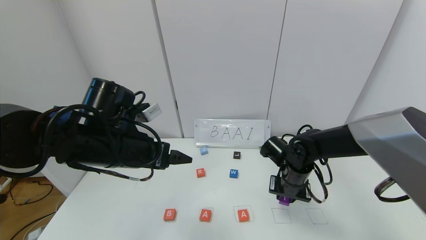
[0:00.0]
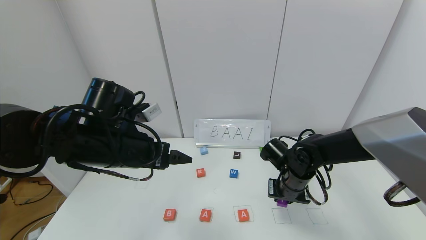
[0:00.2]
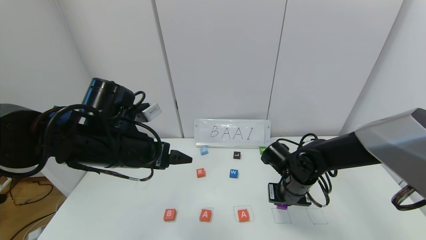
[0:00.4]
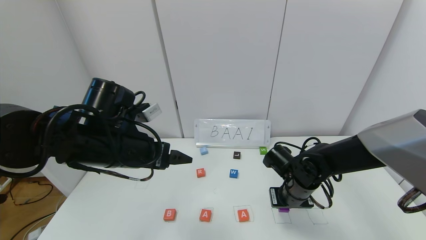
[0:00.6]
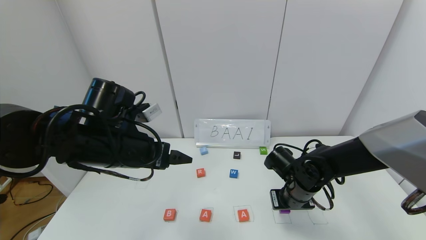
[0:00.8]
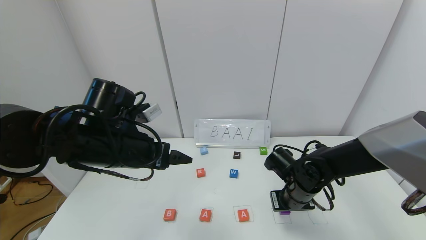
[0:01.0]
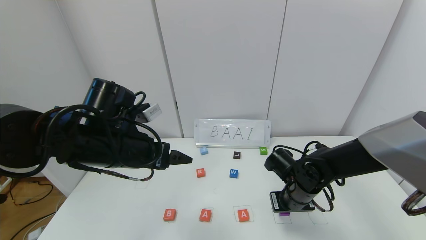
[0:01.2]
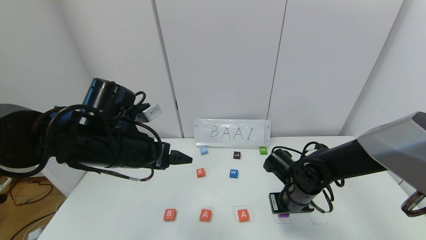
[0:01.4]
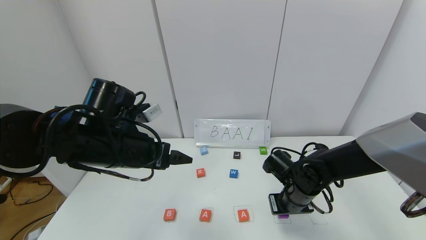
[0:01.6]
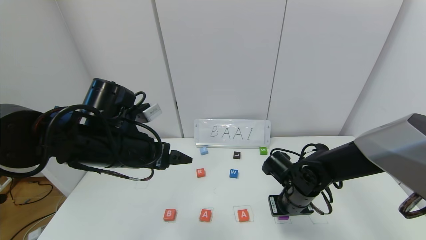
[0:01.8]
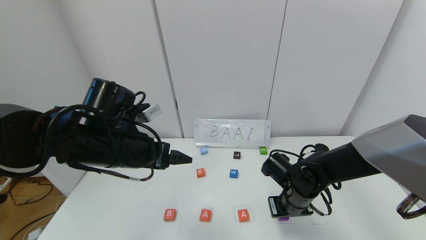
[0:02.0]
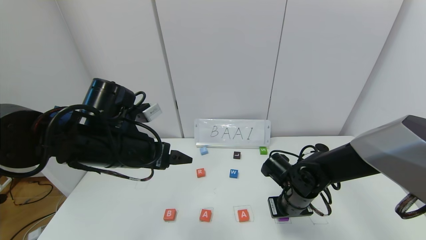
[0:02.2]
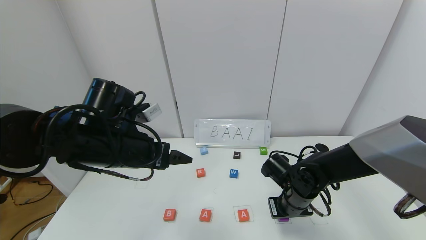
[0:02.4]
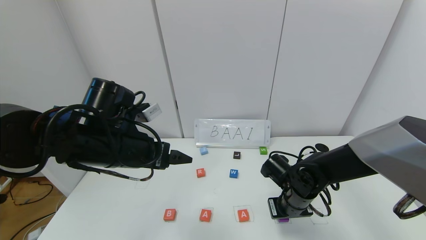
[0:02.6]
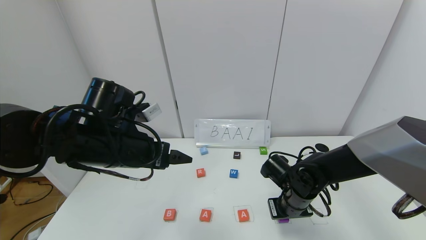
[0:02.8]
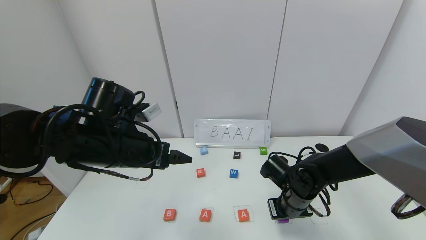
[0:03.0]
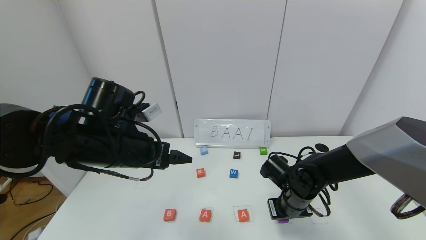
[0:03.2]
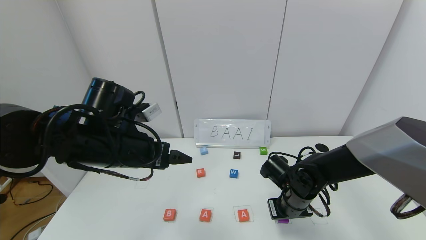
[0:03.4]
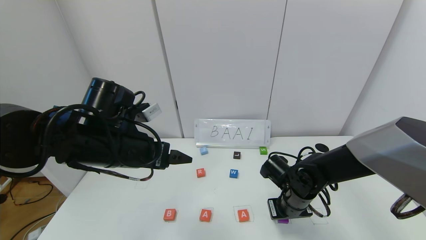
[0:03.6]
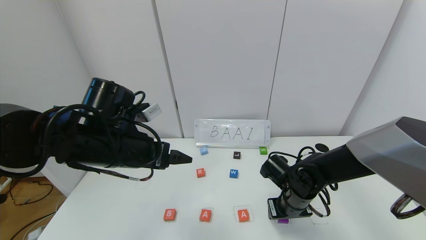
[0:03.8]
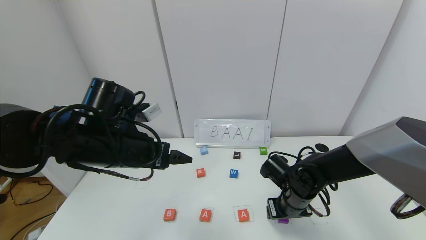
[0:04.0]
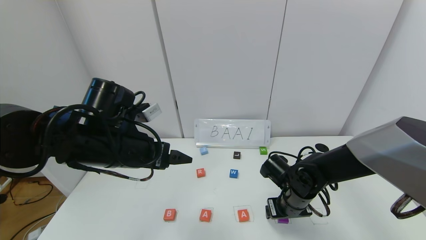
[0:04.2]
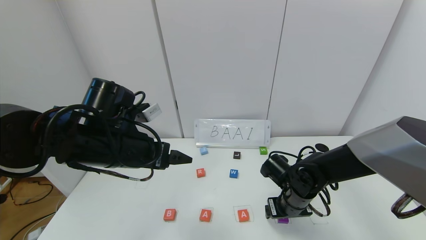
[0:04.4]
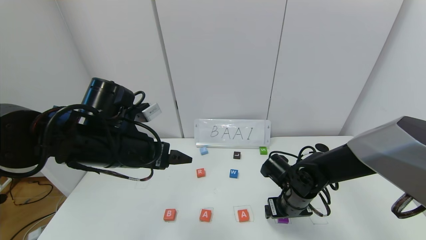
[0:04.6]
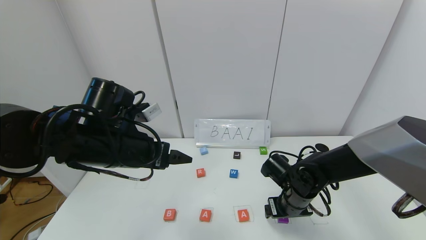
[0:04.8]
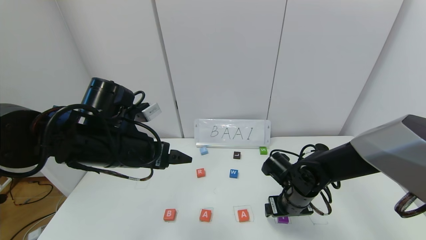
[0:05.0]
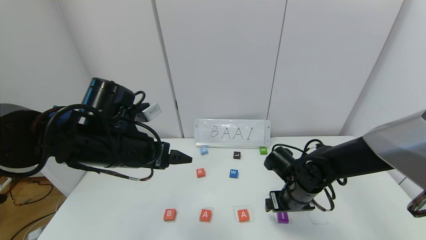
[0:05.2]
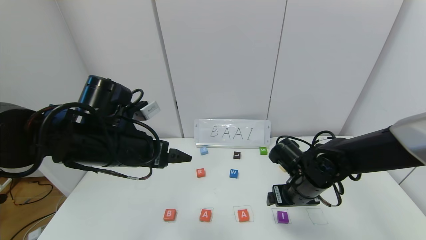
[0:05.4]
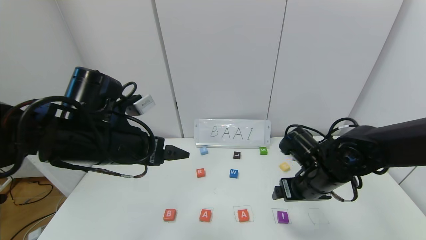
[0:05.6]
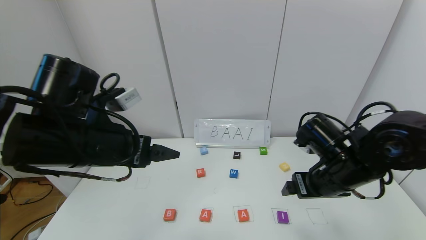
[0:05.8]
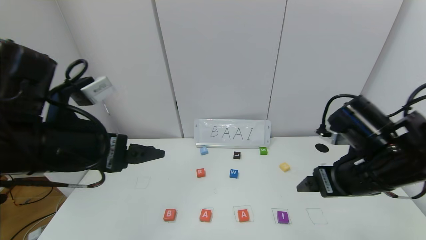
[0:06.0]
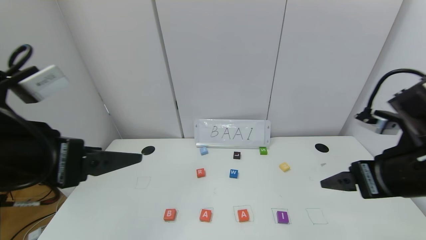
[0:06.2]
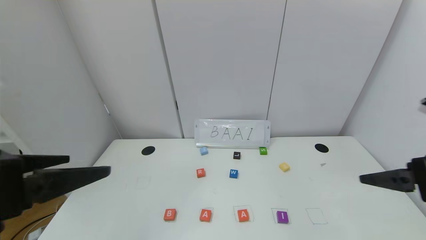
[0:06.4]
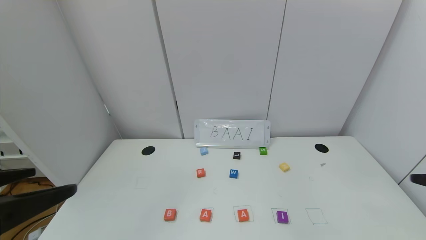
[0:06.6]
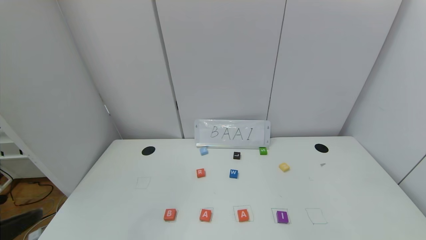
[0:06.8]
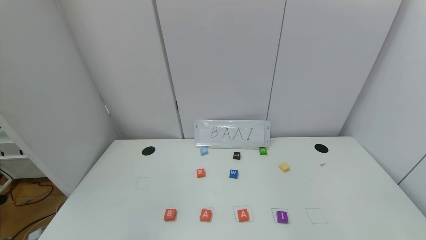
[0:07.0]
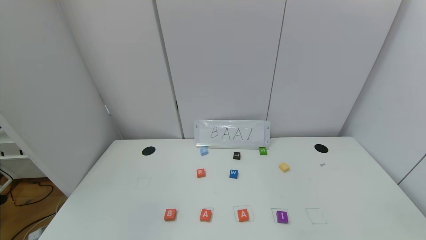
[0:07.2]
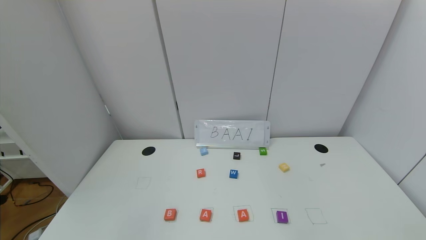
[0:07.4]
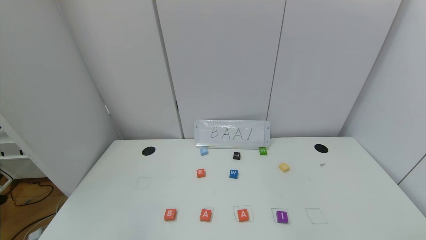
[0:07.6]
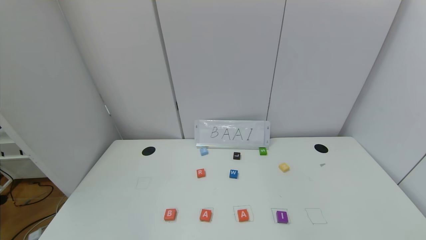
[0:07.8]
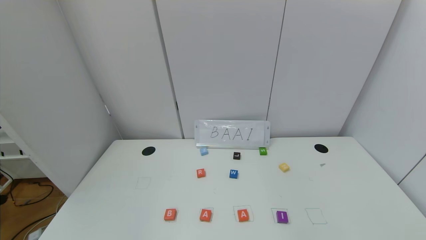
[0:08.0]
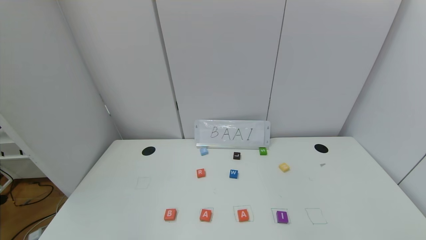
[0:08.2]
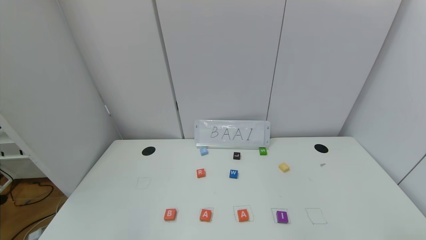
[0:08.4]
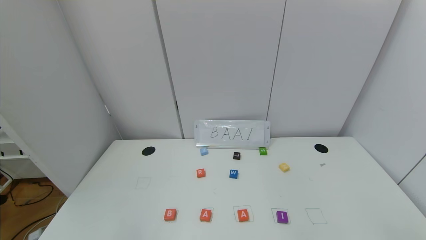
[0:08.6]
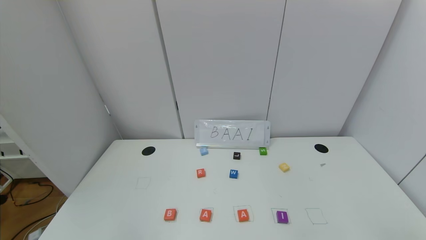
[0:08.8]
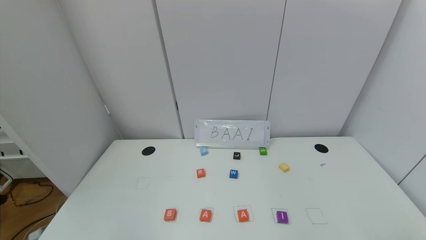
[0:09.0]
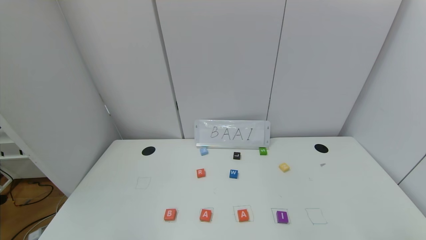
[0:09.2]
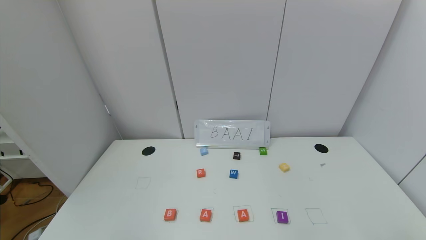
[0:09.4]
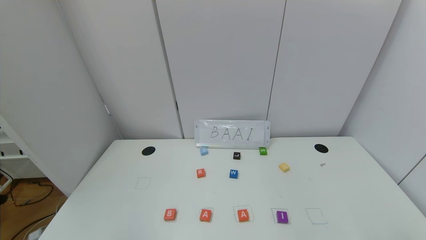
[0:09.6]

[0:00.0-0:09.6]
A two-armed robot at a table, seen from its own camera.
Task of the whole recording: use the gripper to find blocks with the letters b, a, a, and i on the table and arrange them into BAAI, then find r and N and turn the arranged baai into brian.
Step, 0:00.0 to 0:04.8: Place the block I in the fourth location.
0:01.6 to 0:03.2: Both grippers stay about where they are.
0:03.2 to 0:04.8: The right gripper opens its fingers.
0:04.8 to 0:06.4: The right gripper travels upward, backward and to the right by some 30 cm. Meanwhile the left gripper moves backward and upward, approximately 20 cm.
0:06.4 to 0:08.0: Both grippers move backward and downward, approximately 25 cm.

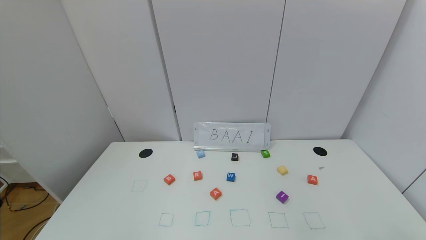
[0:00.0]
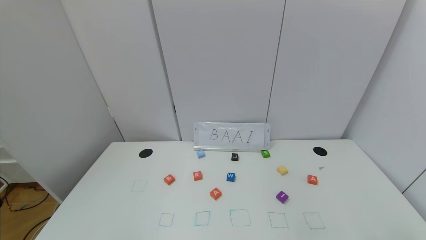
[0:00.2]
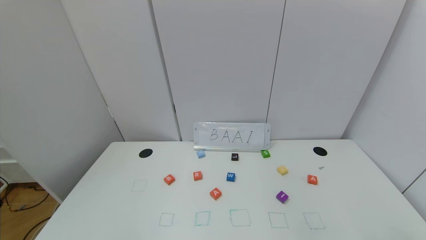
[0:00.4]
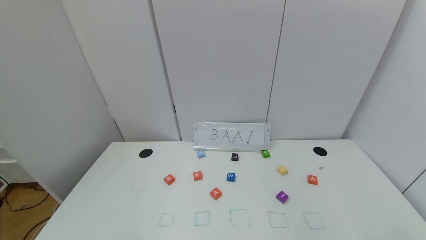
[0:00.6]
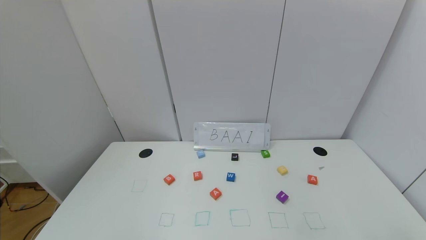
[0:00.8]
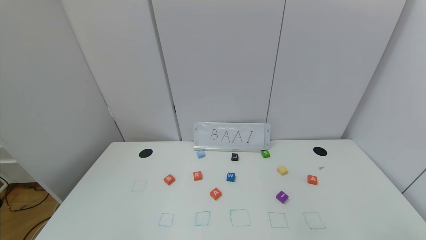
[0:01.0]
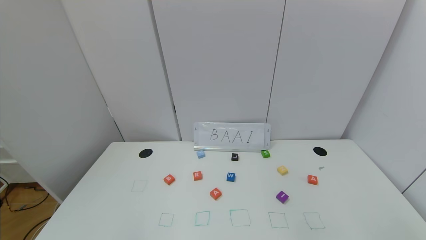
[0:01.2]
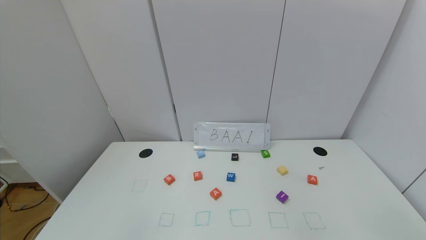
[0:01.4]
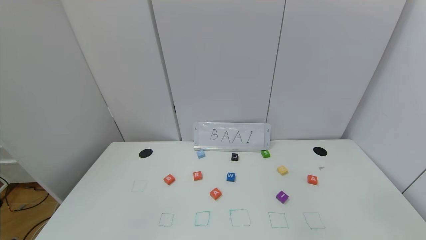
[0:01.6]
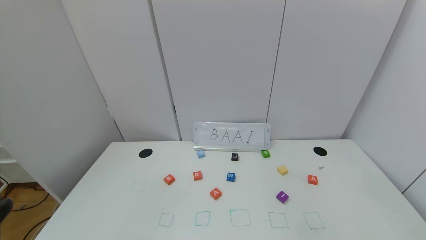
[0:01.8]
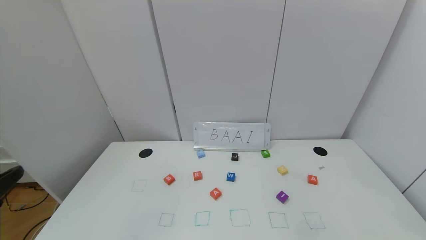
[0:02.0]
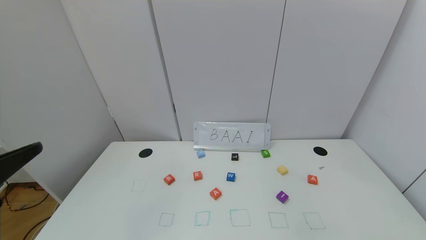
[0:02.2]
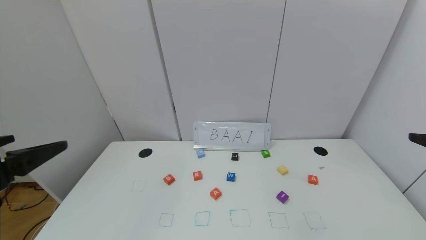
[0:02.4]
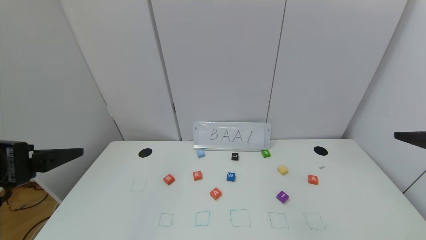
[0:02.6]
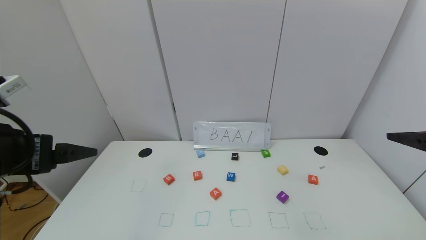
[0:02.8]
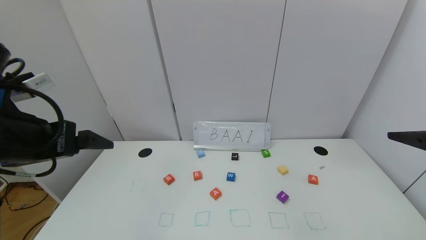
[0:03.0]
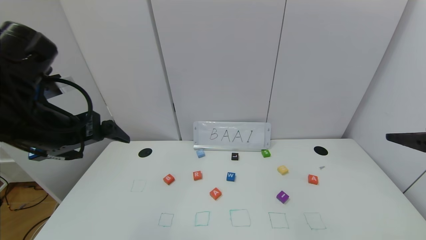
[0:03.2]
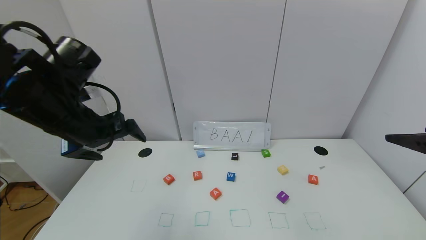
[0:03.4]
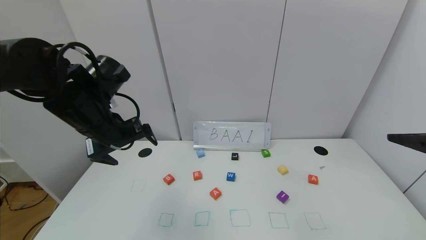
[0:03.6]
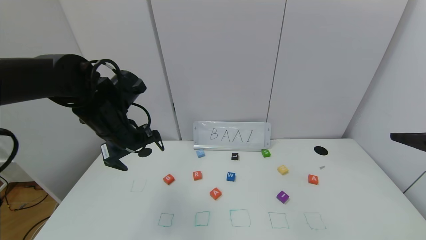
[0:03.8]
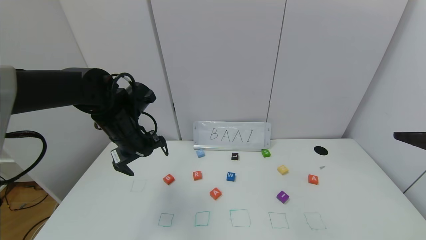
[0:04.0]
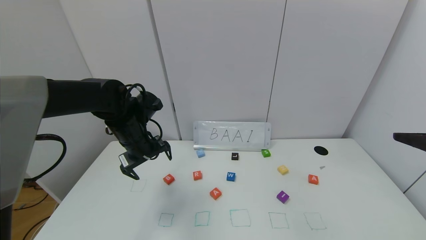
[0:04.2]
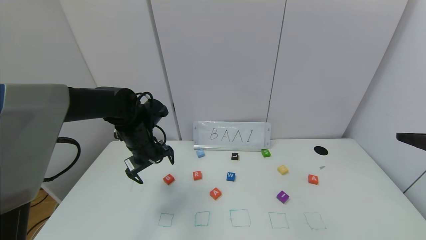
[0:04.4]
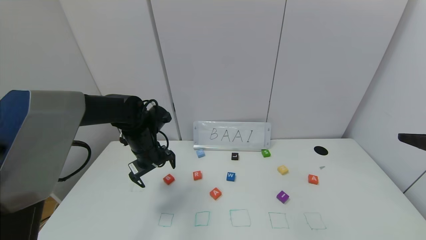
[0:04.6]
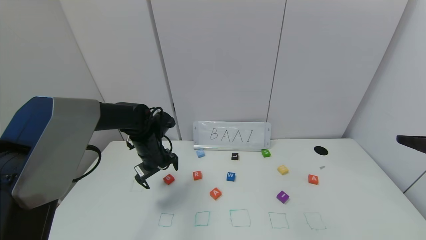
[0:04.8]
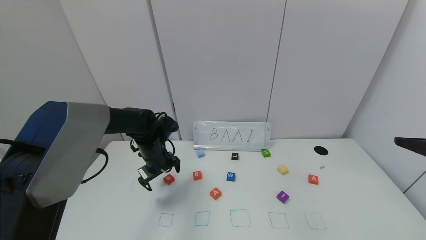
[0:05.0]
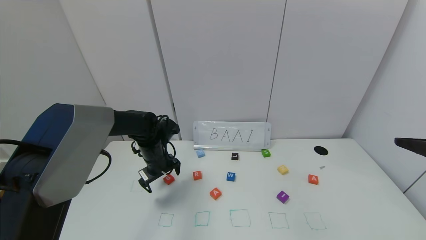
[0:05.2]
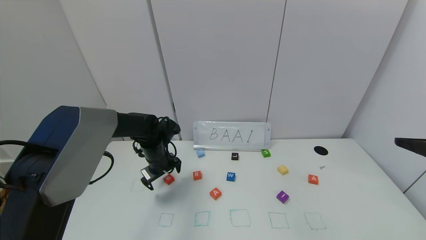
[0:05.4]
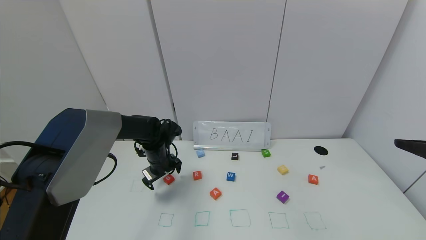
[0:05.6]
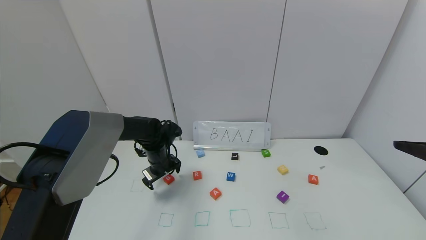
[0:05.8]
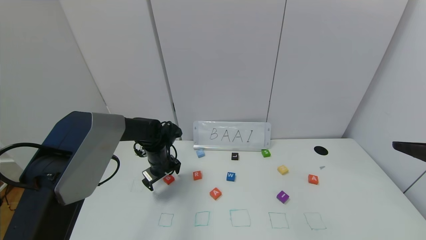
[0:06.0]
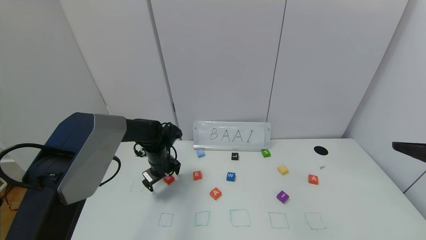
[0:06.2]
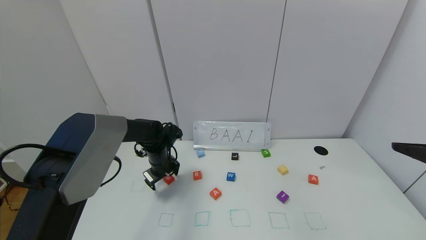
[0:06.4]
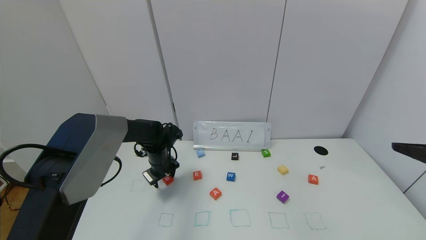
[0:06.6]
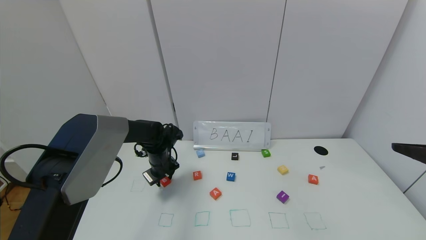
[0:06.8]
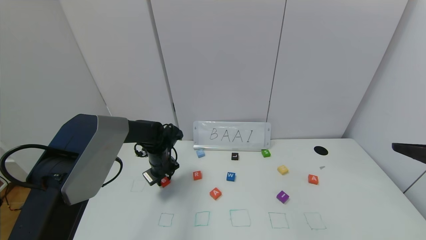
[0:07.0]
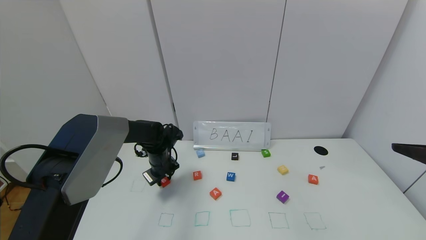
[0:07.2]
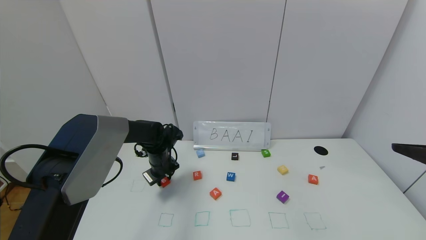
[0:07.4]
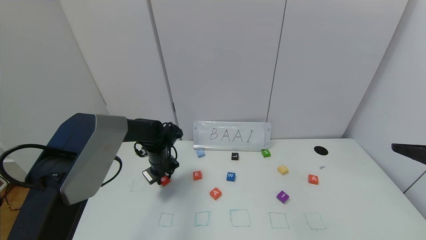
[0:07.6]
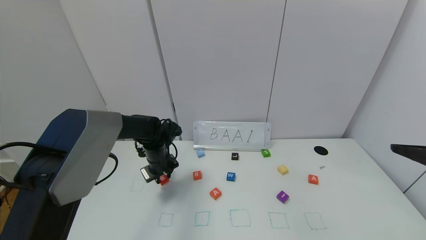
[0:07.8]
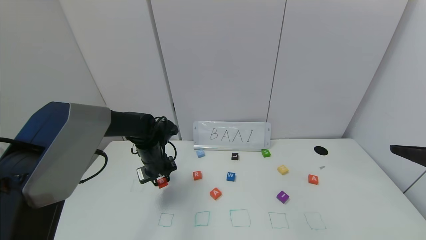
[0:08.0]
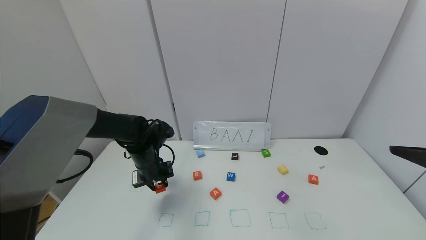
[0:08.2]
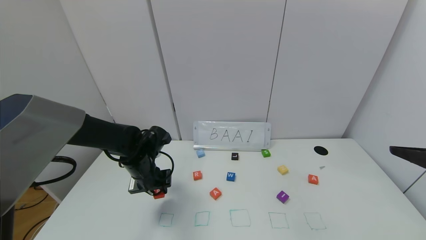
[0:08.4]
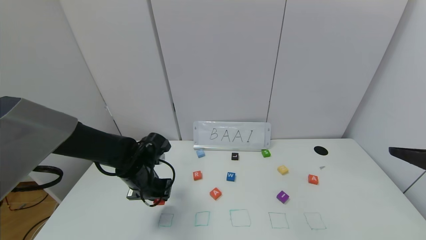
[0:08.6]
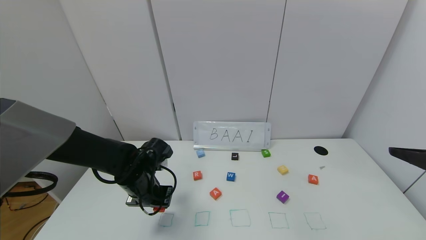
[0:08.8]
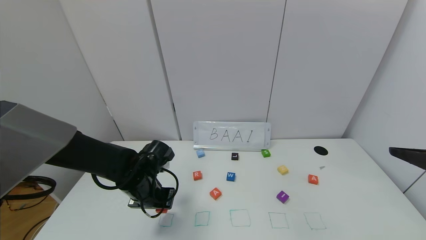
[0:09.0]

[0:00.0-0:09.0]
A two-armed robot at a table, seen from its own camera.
Task of the whole recording: use the gripper to find blocks with the letters b, a, a, and i on the table and arrange them into BAAI, then find r and N and turn the arranged baai into brian.
0:01.6 to 0:03.0: Both grippers travel together forward and upward, roughly 20 cm.
0:03.0 to 0:04.4: The left gripper is displaced forward and downward by some 25 cm.
0:04.4 to 0:06.0: The left gripper goes about 10 cm downward.
0:06.0 to 0:07.6: The left gripper closes.
0:07.6 to 0:09.0: The left gripper is displaced backward by roughly 15 cm.
